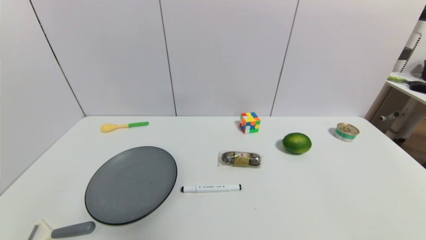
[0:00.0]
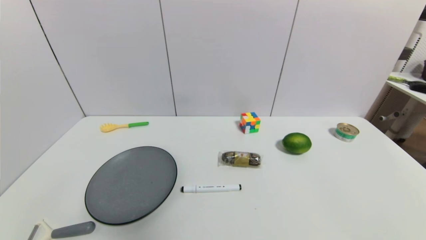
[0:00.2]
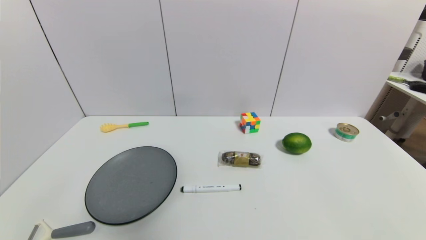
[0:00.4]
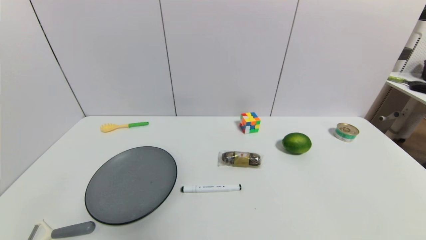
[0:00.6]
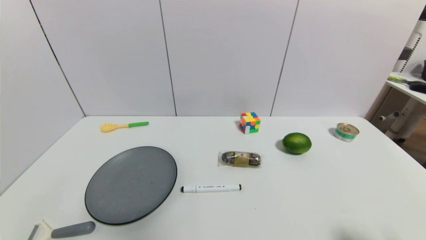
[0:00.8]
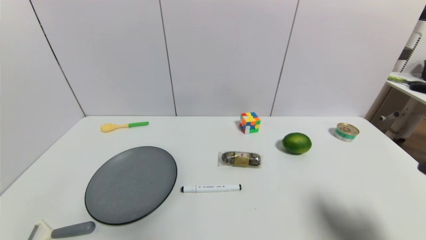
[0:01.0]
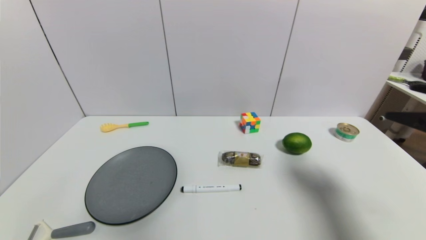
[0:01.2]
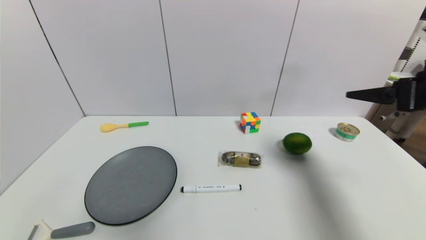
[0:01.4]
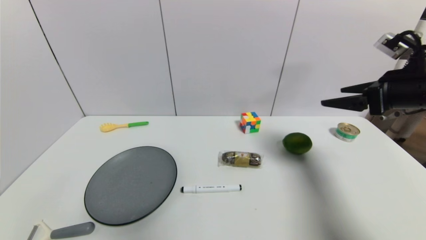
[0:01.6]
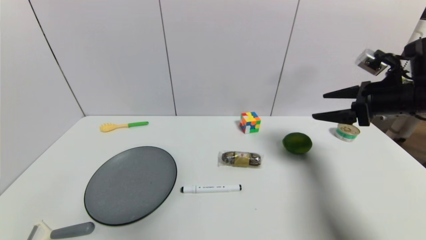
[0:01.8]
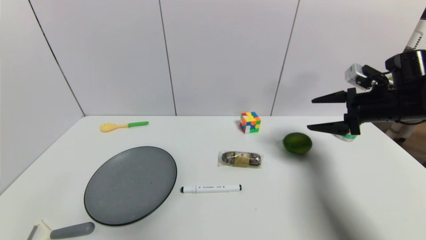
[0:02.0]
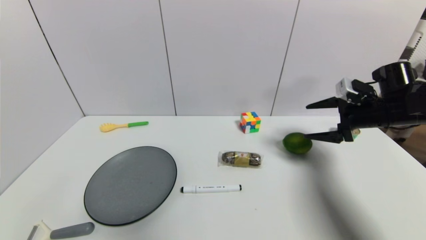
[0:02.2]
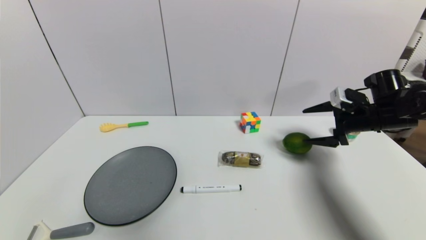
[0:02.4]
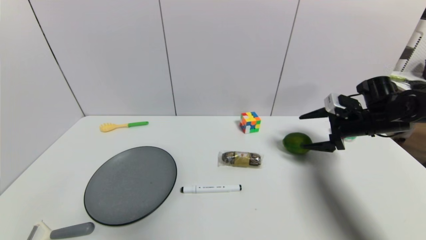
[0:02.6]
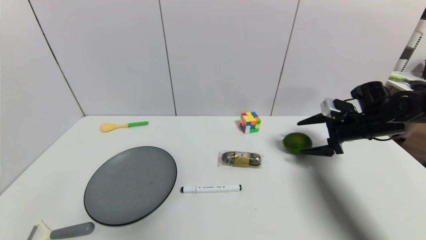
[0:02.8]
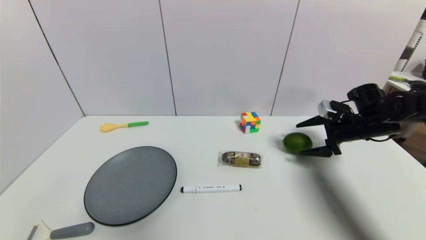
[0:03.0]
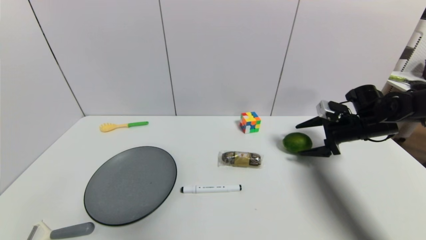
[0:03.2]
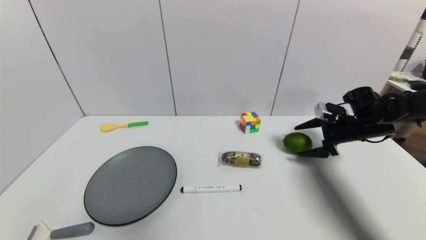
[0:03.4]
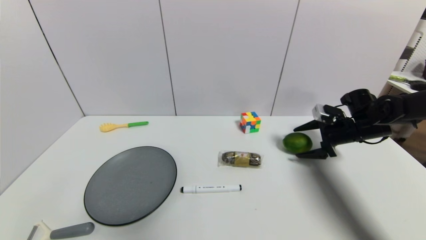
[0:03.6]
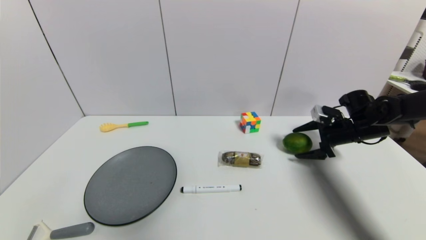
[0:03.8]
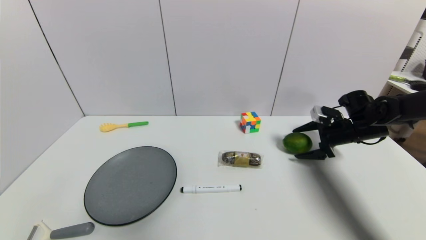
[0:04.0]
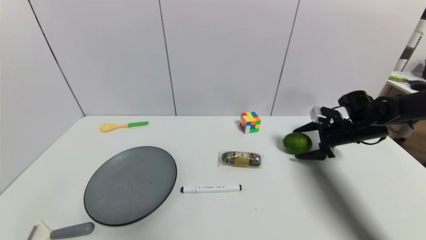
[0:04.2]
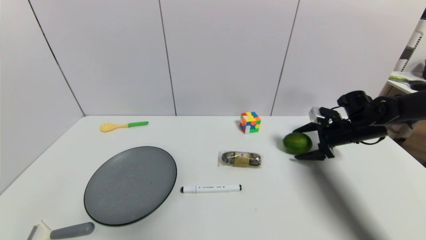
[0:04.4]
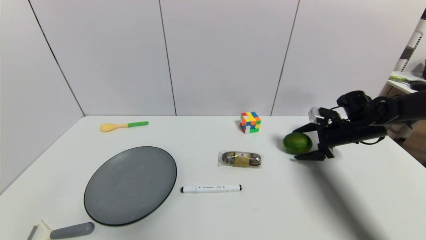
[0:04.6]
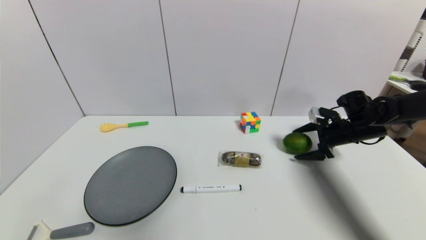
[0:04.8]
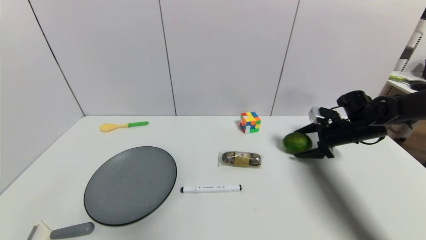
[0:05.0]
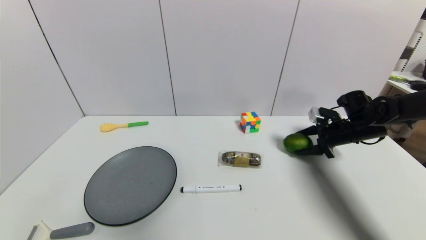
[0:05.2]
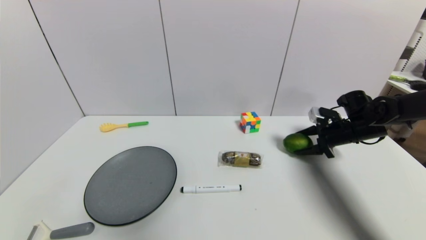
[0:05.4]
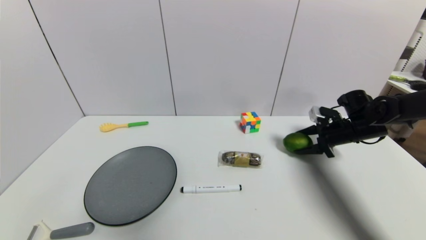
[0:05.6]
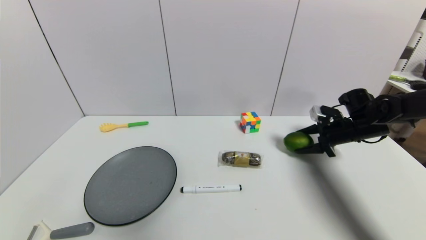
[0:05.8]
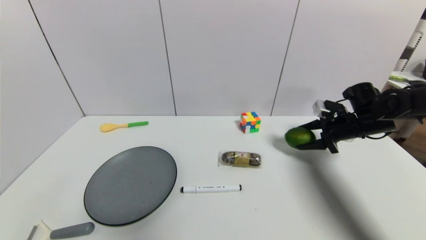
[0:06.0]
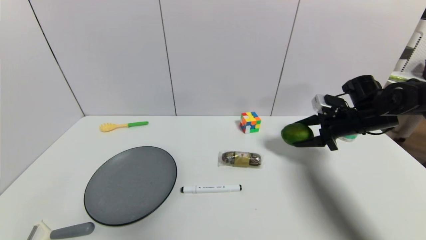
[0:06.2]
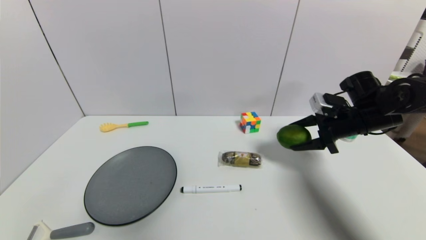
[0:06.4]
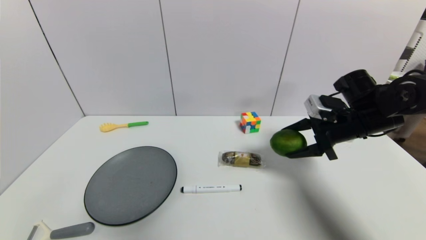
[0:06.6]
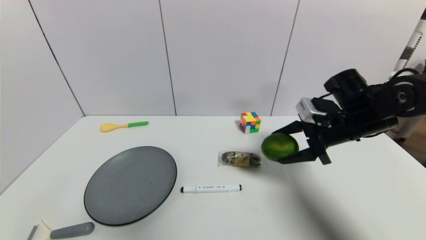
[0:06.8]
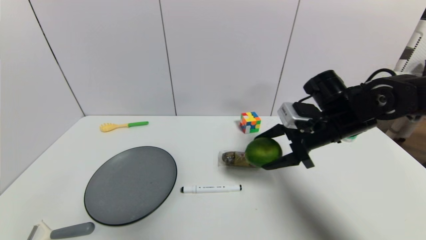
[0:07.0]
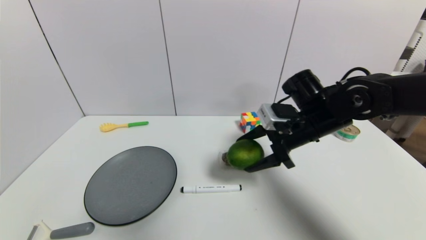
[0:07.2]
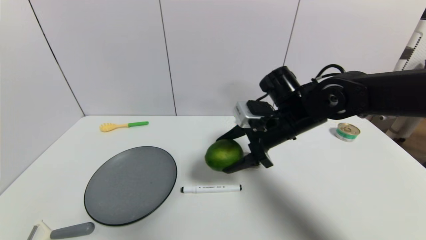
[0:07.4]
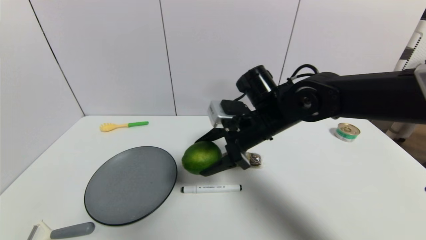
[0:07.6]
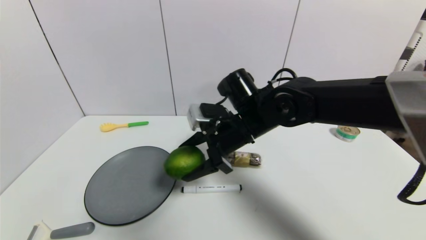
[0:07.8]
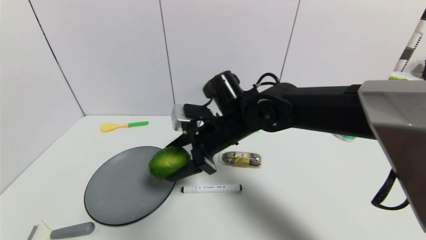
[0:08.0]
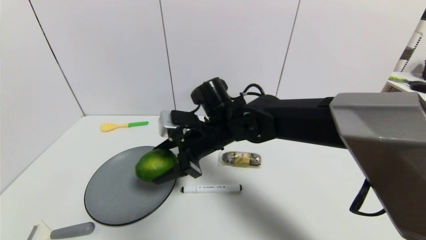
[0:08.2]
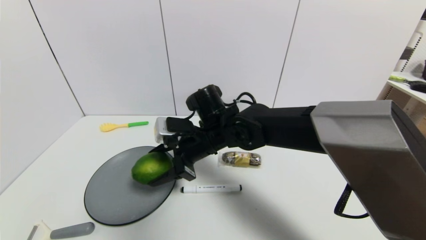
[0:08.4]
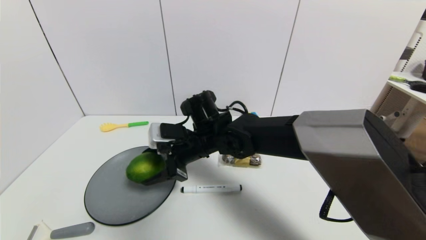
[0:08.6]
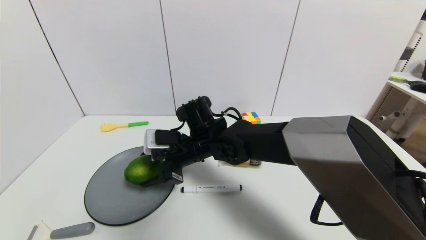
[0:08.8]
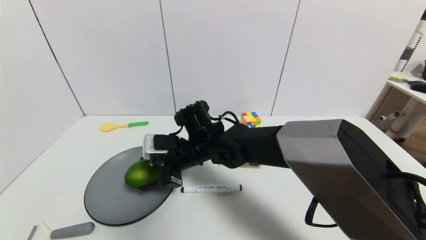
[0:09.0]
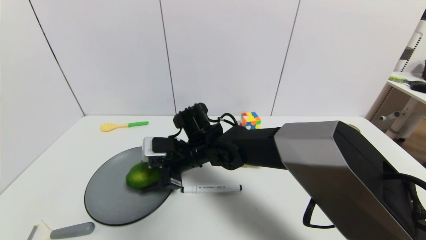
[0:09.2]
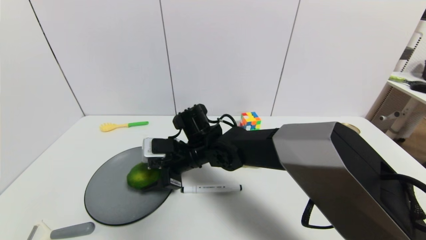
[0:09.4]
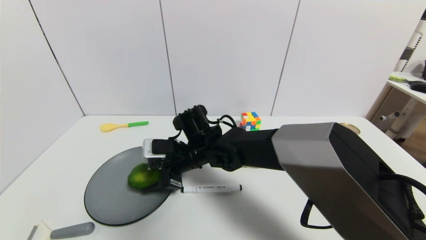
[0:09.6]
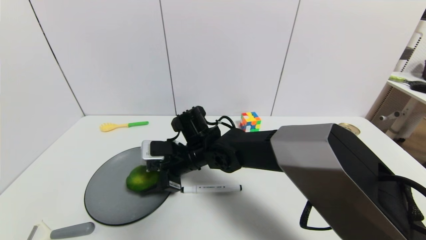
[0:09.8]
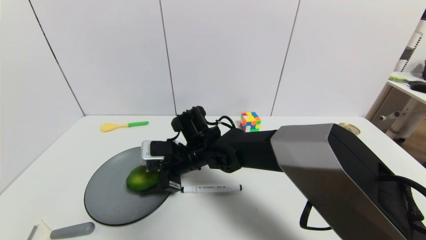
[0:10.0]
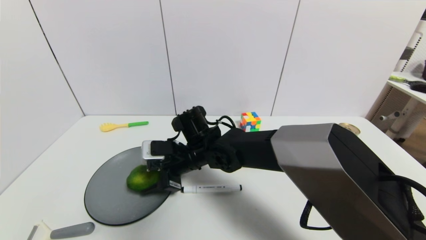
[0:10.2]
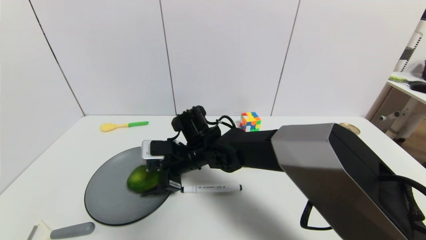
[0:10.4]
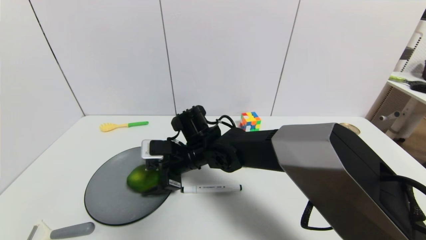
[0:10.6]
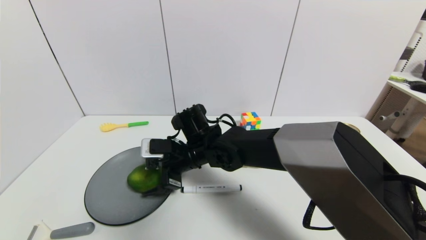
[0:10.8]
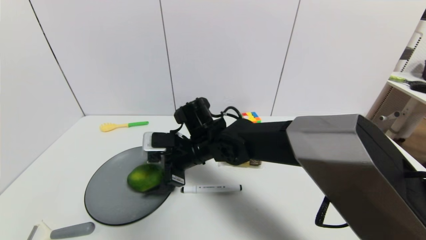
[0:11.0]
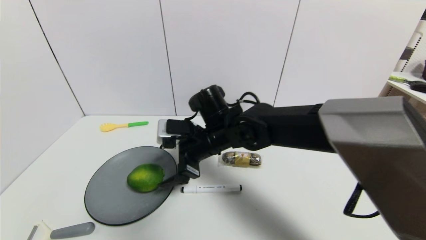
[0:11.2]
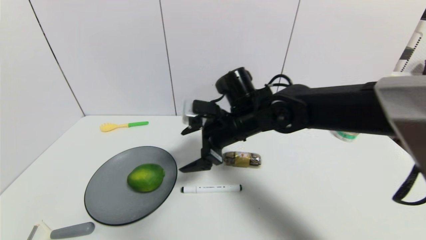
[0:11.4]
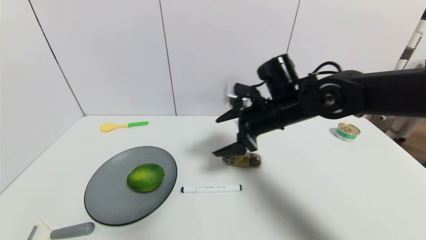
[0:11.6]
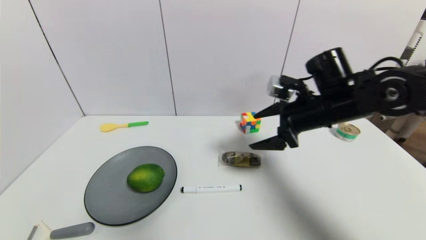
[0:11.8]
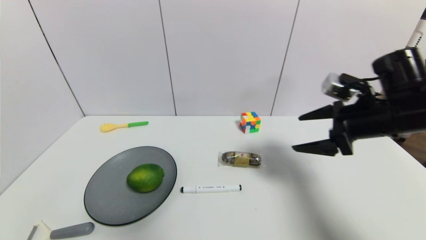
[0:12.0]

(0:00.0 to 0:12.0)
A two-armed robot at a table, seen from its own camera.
Task of the whole recording: use a gripper to pick the target object and place on the gray plate.
Step, 0:00.0 - 0:05.8: Grasp the green lemon with the right gripper.
Step, 0:06.0 - 0:11.2: Place the green lemon on the gray plate with the right gripper.
0:00.0 - 0:01.6: The right gripper is displaced forward and upward by some 35 cm.
0:01.6 - 0:03.0: The right gripper goes roughly 15 cm downward and forward.
0:03.0 - 0:04.4: There are only small adjustments of the grippers.
0:04.4 - 0:06.0: The right gripper closes up.
0:06.0 - 0:07.6: The right gripper goes some 25 cm to the left.
0:07.6 - 0:09.0: The right gripper moves to the left and downward, approximately 15 cm.
0:09.0 - 0:10.4: Both grippers stay about where they are.
0:10.4 - 0:12.0: The right gripper shifts roughly 35 cm to the right, and opens its fingers.

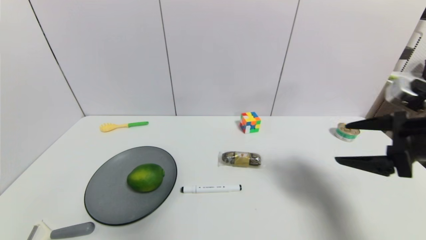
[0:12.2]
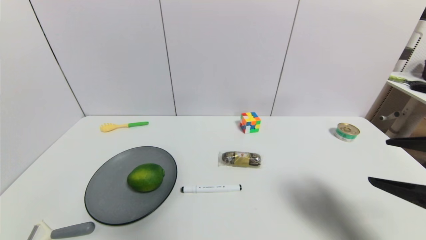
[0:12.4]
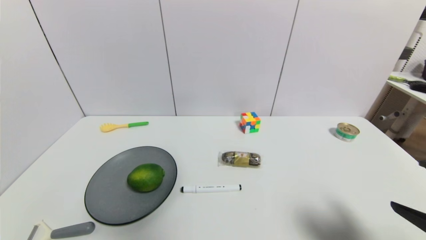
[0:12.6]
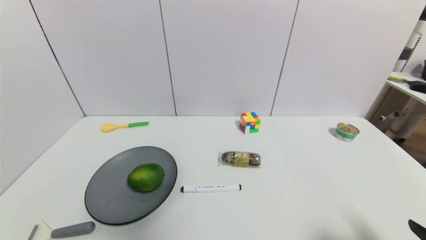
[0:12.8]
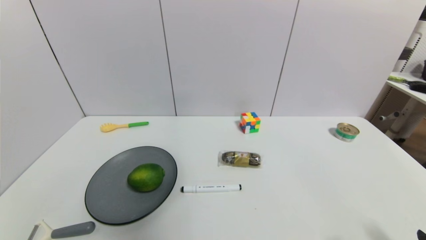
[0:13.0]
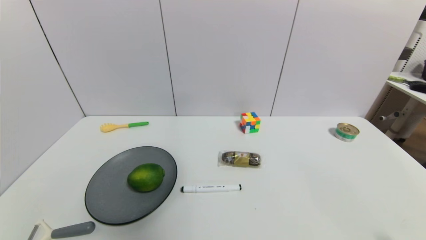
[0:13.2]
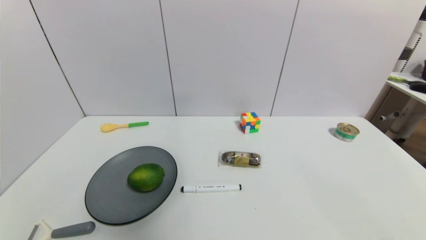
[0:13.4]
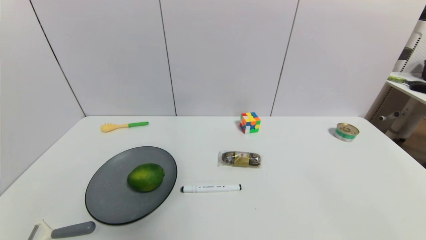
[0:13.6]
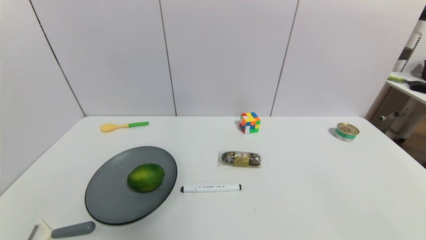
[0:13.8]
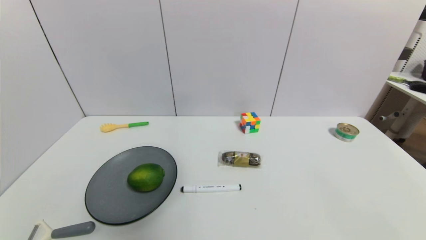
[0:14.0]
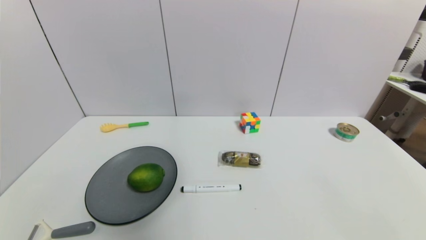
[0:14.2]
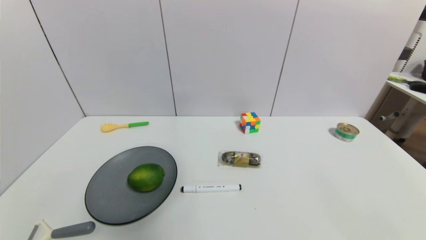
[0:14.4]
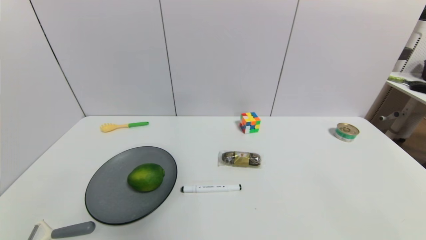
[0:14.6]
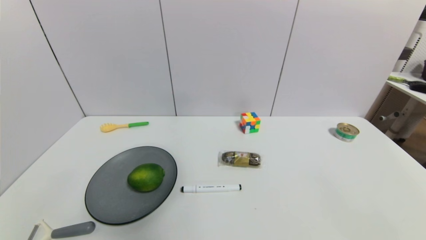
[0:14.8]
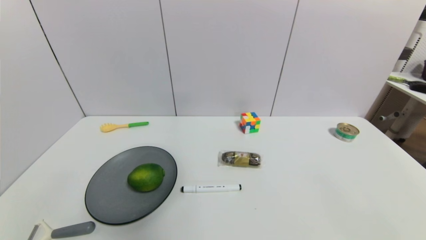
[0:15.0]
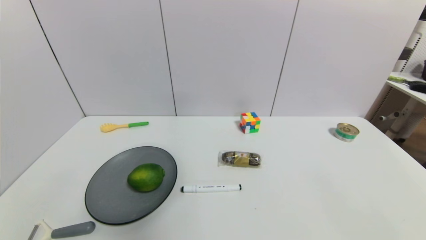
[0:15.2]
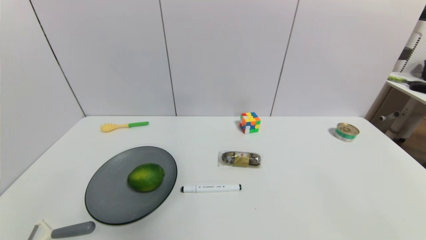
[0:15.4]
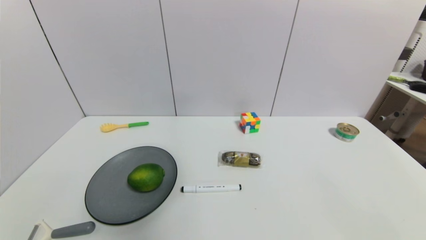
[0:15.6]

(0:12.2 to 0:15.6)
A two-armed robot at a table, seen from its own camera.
Task of the whole recording: use a gripper to pick the target object and place on the gray plate.
0:12.2 - 0:13.8: The right gripper travels backward and downward by approximately 30 cm.
0:13.8 - 0:15.6: Both grippers stay put.
